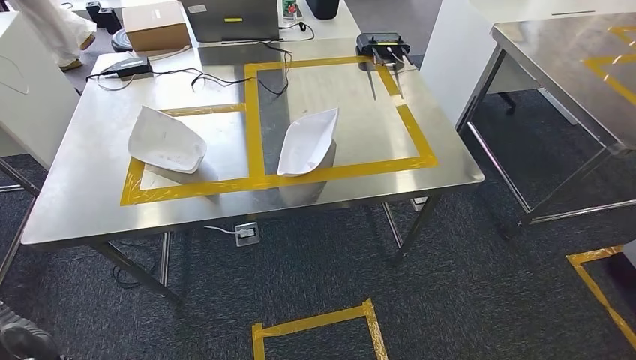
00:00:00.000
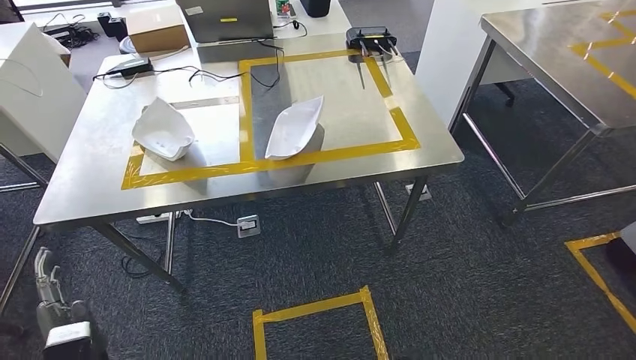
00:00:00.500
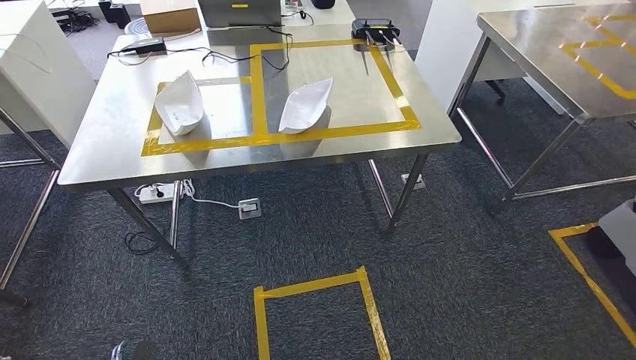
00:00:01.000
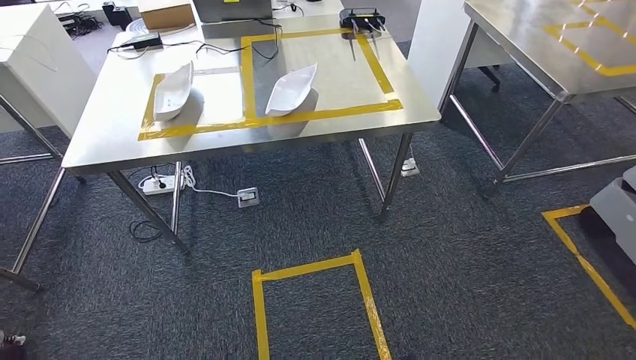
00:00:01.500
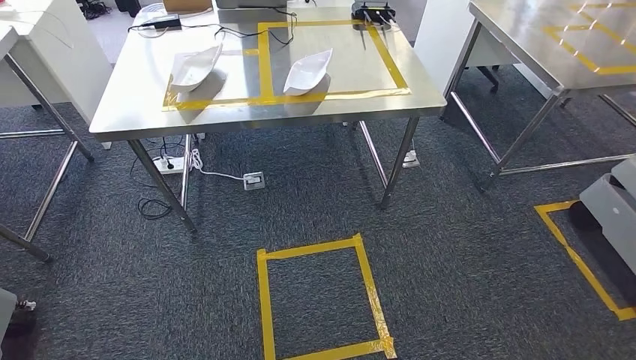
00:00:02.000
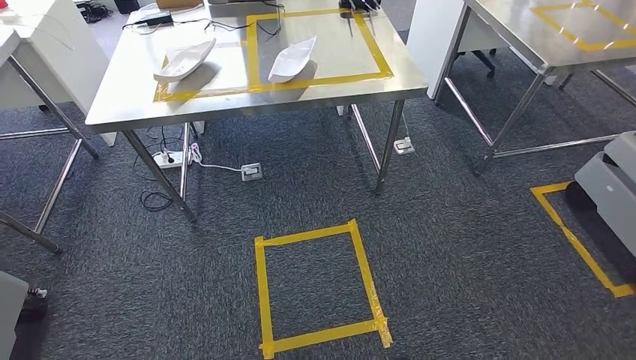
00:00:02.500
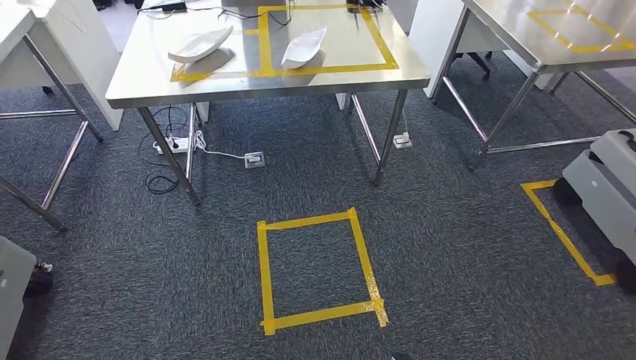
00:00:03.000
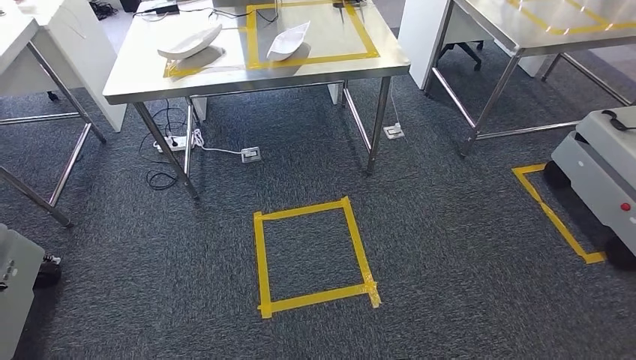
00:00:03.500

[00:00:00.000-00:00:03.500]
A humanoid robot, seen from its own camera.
Step, 00:00:00.000 to 00:00:03.500: Move to the initial position at the workbench.
